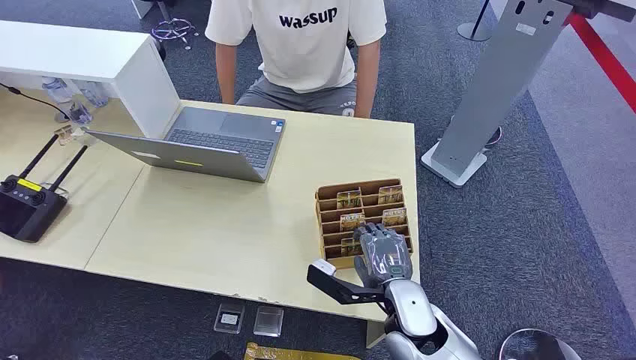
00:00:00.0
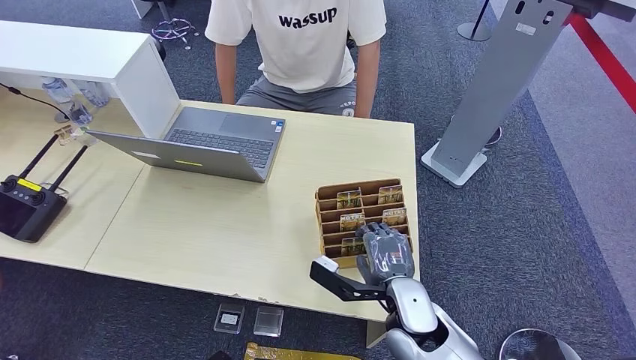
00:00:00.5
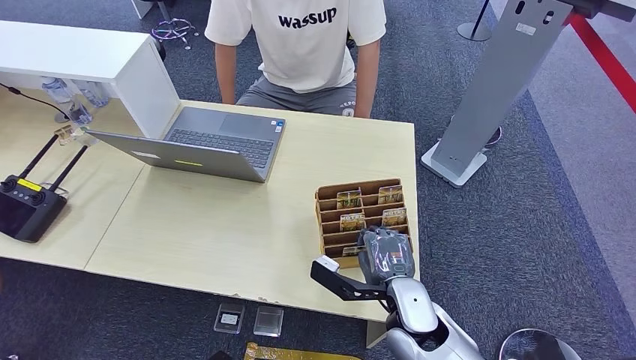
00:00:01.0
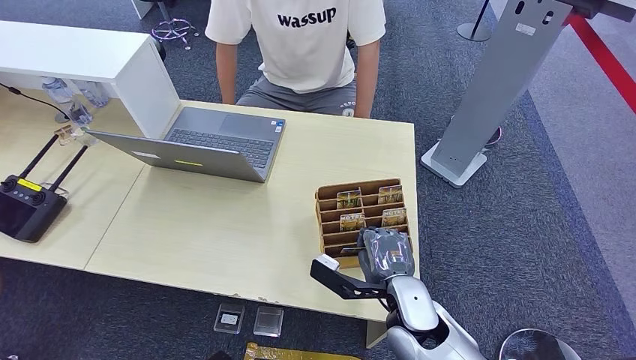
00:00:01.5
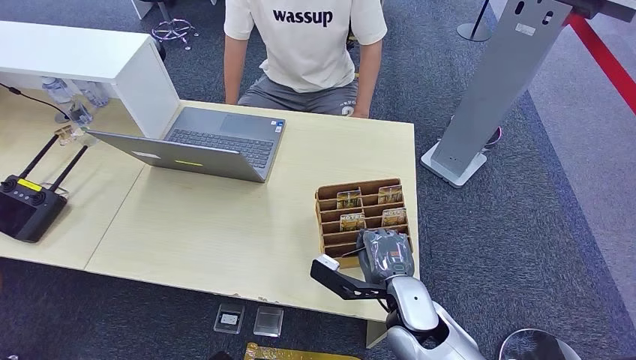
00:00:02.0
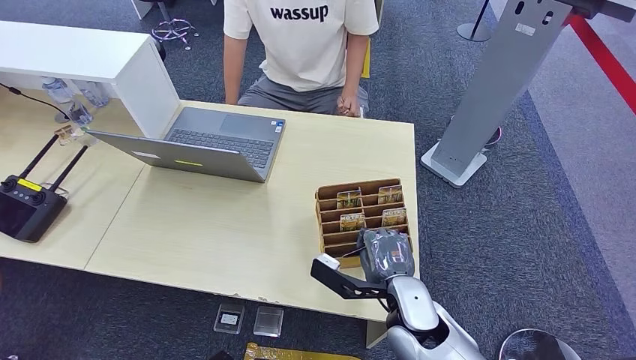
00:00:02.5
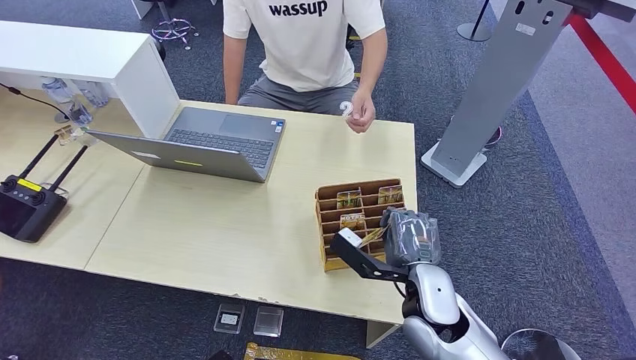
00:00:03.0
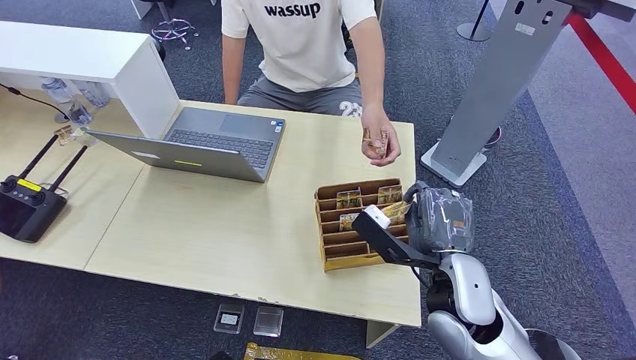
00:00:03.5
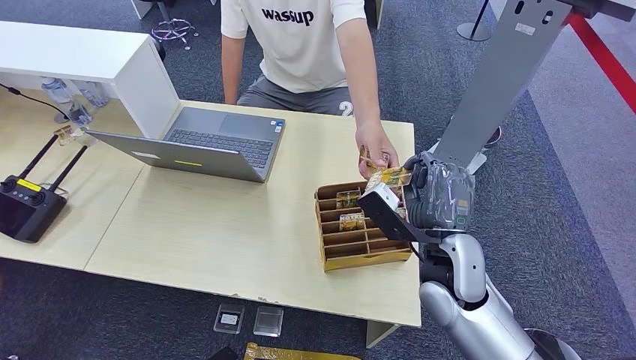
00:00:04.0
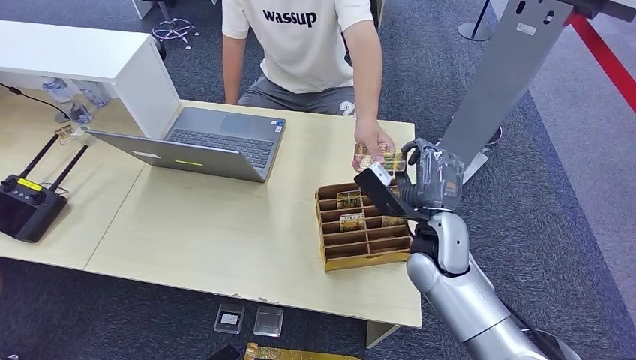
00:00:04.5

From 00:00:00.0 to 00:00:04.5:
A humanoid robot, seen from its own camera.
Step, from 00:00:00.0 to 00:00:02.5: Pick up the room card from the card holder.
Step, from 00:00:03.5 to 00:00:04.5: Hand the room card to the target.
From 00:00:02.0 to 00:00:04.5: The right hand moves forward and upward, roughly 10 cm.
